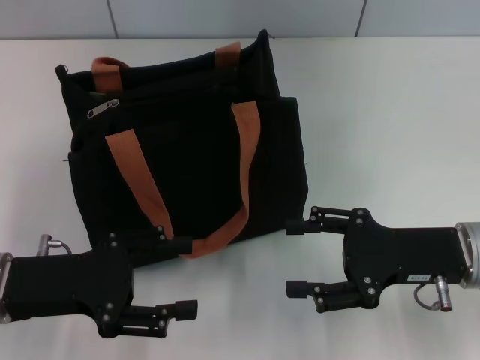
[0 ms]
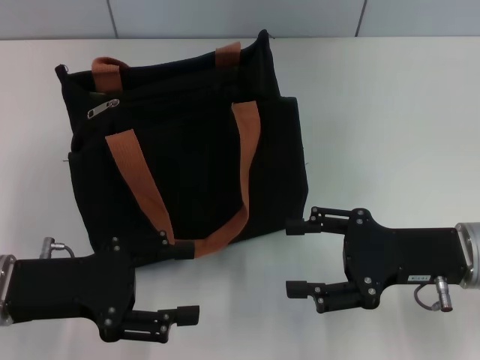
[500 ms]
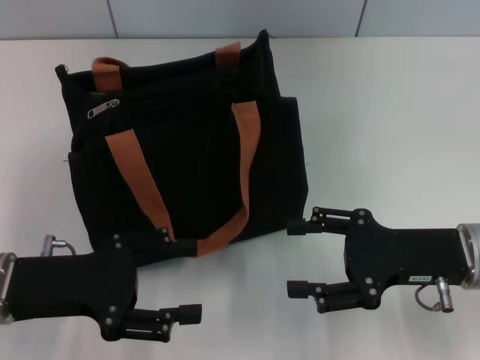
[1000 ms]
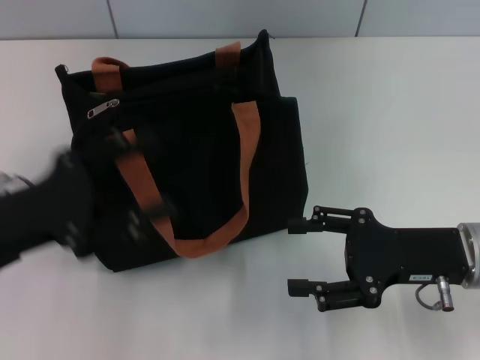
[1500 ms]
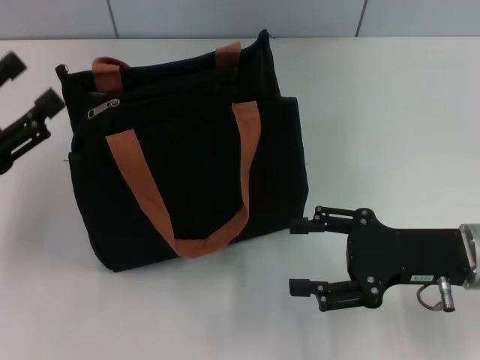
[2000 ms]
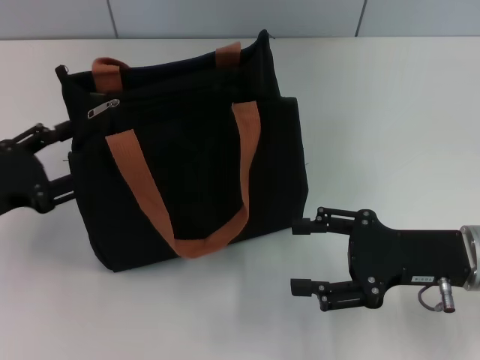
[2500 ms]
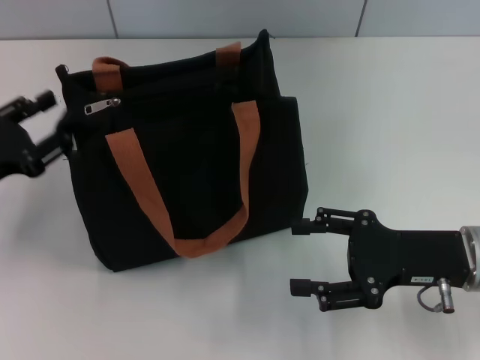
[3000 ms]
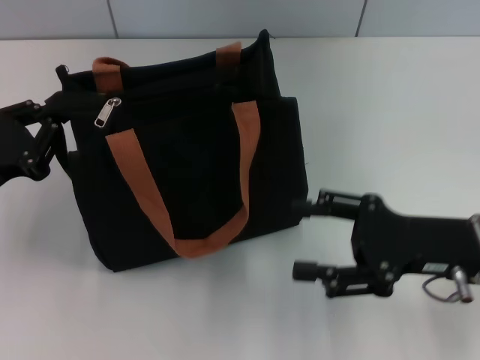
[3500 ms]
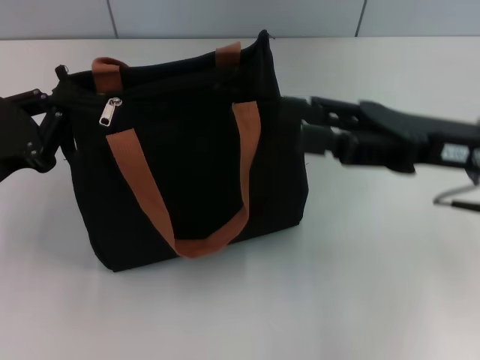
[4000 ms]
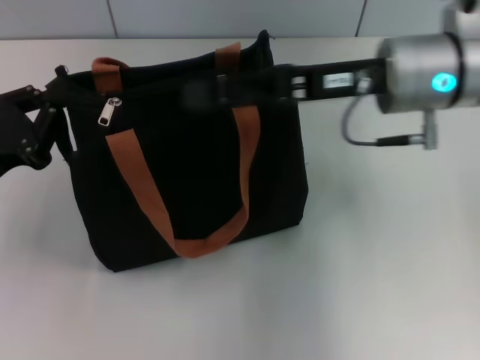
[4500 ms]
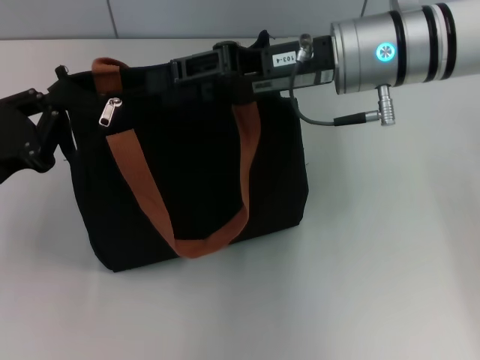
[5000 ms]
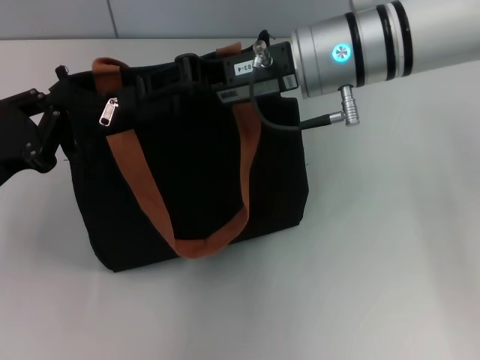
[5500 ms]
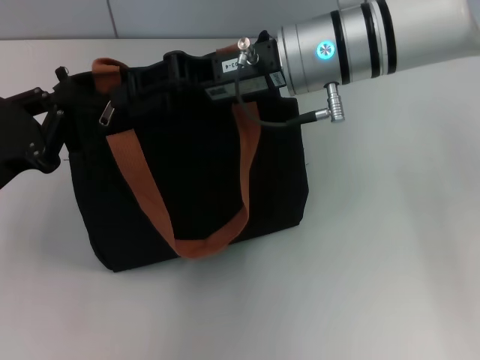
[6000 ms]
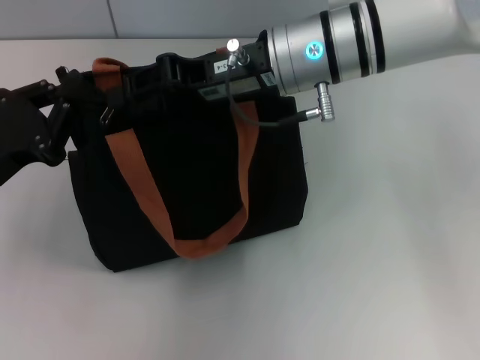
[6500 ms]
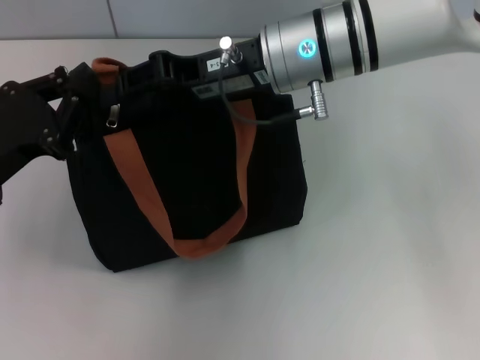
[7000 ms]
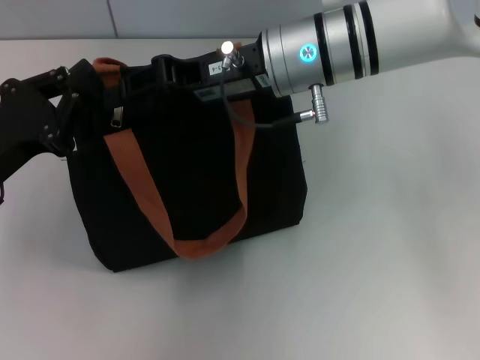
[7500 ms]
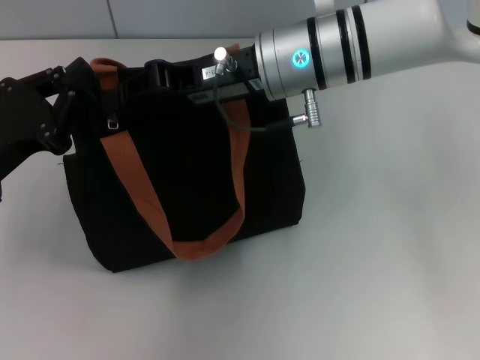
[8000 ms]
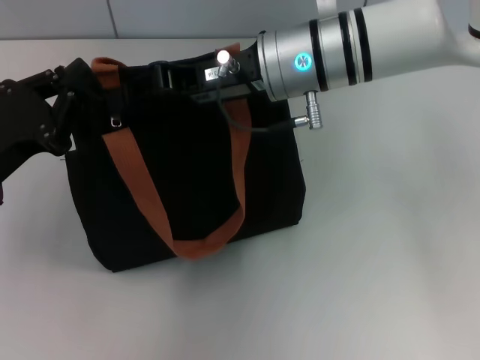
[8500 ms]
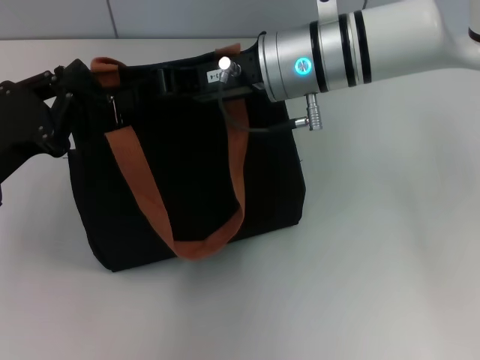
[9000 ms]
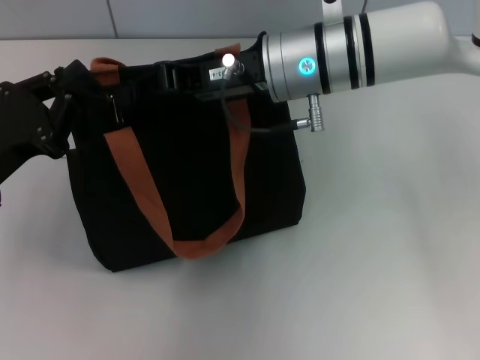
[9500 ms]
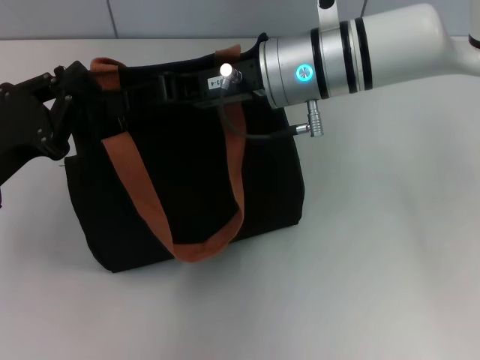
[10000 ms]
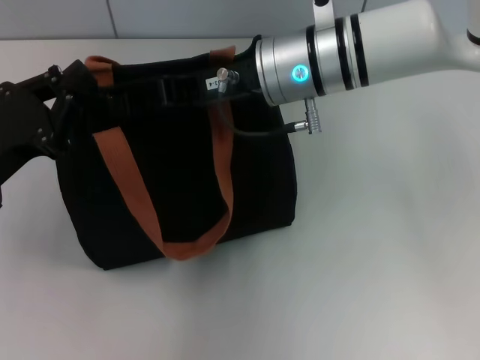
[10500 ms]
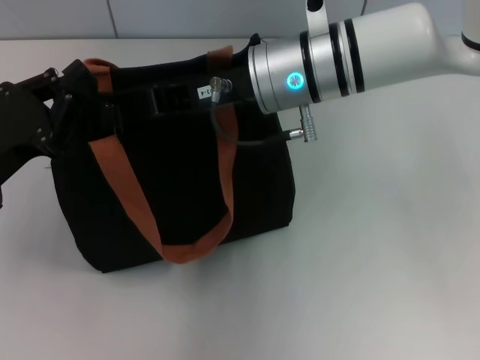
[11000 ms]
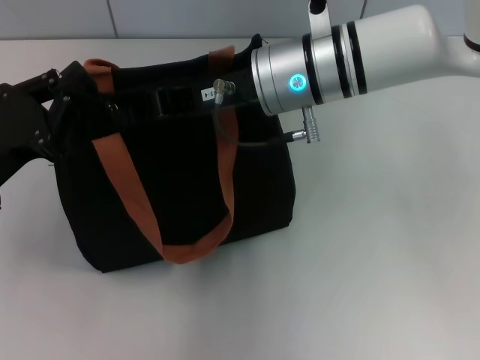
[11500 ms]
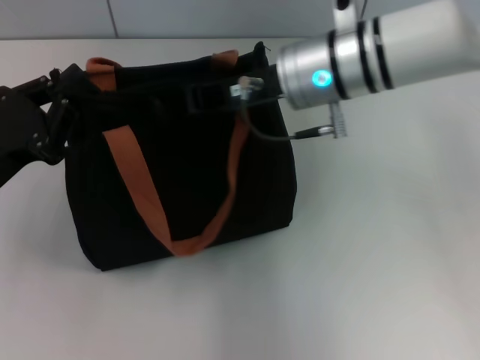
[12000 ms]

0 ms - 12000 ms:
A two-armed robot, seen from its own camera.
0 ms - 2000 ms: The left gripper heads to the left, covering some 5 cm.
2000 ms - 4000 ms: The left gripper closes. Meanwhile the right gripper shifts approximately 10 cm upward.
4000 ms - 6000 ms: The right gripper is displaced to the left and forward by roughly 15 cm, and closes up.
6000 ms - 12000 ms: The grippers make only small movements.

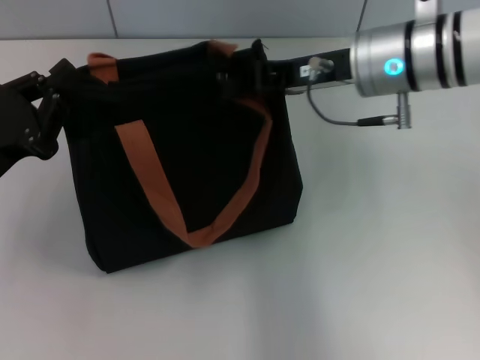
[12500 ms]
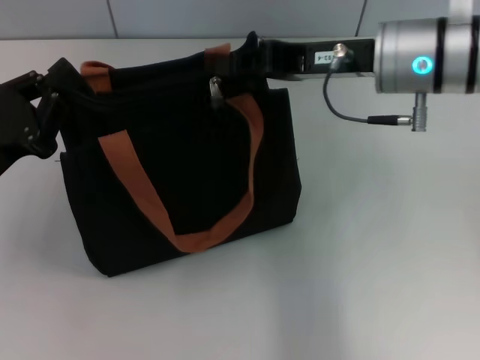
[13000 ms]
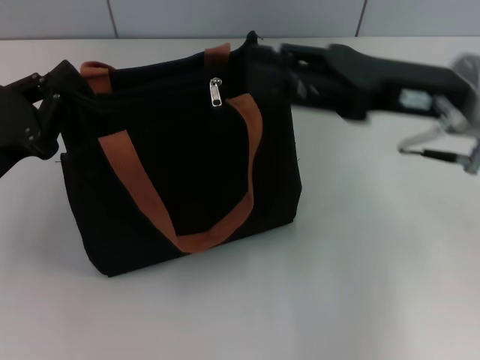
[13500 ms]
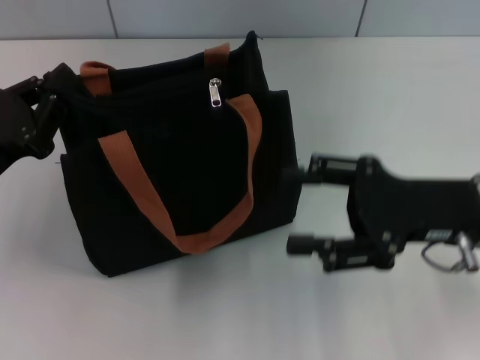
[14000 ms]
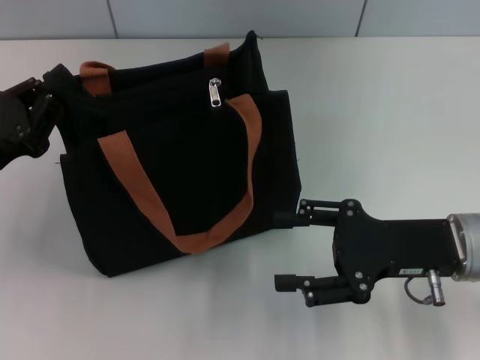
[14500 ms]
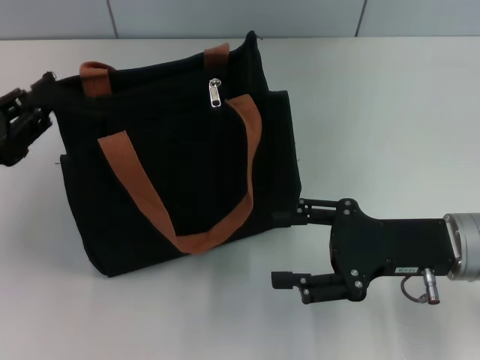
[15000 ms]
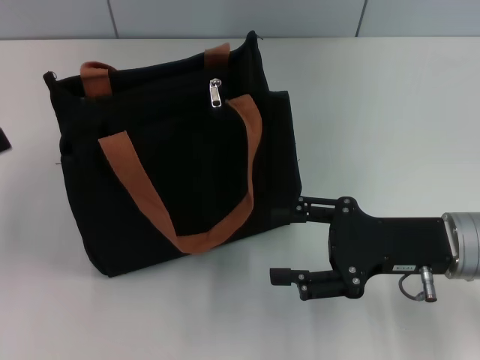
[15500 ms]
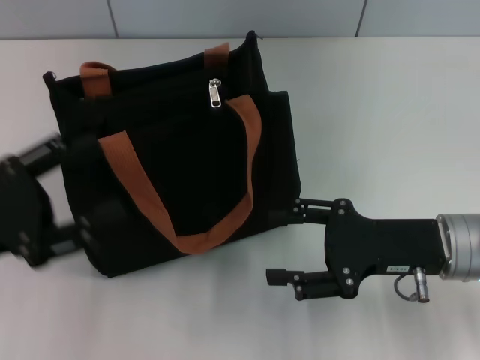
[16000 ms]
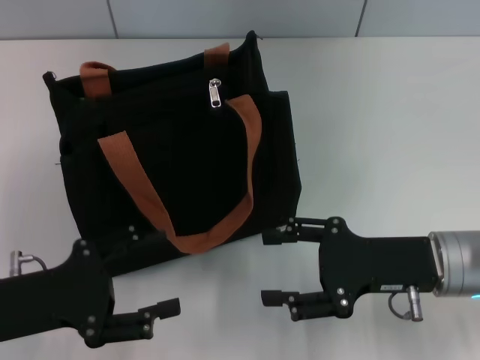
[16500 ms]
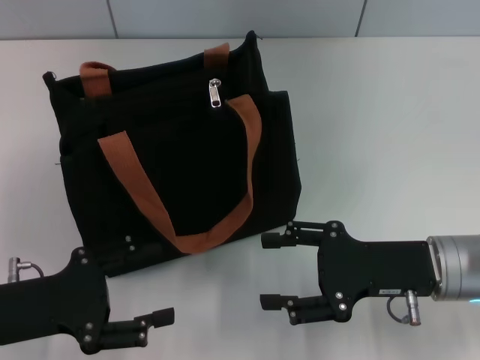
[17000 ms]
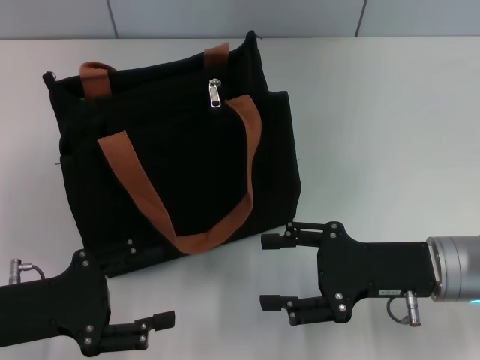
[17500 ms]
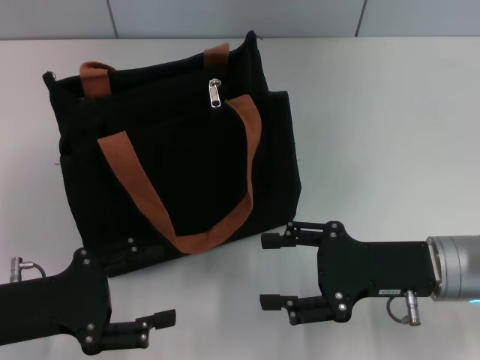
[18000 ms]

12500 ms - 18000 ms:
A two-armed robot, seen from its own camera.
Step, 13500 ms - 15500 ms: Grab the zipper with your left hand.
12500 ms - 14500 ms: The right gripper shifts approximately 20 cm backward, downward and to the right, and opens.
14500 ms - 16000 ms: The left gripper travels to the left and back again, roughly 10 cm each way, and opens its fingers.
16000 ms - 18000 ms: The left gripper changes place by roughly 5 cm.

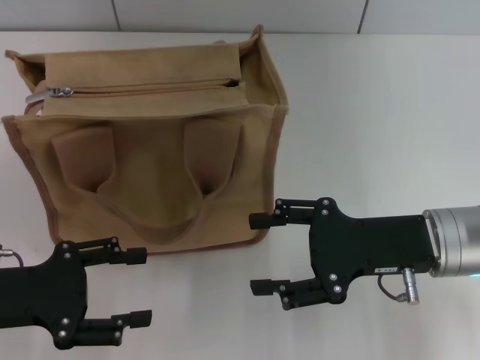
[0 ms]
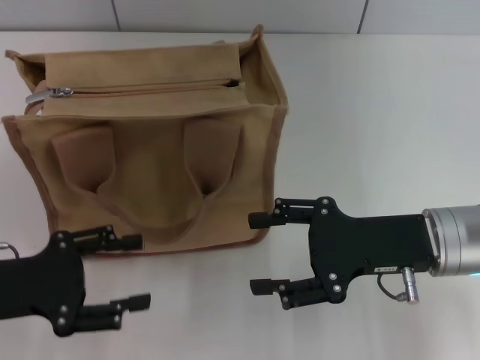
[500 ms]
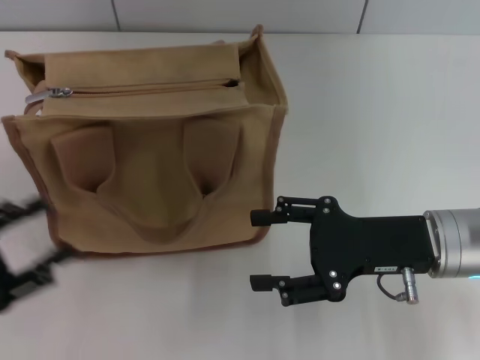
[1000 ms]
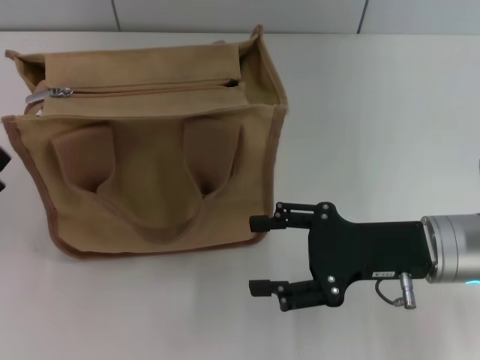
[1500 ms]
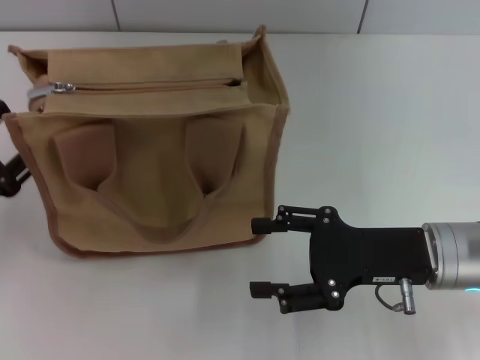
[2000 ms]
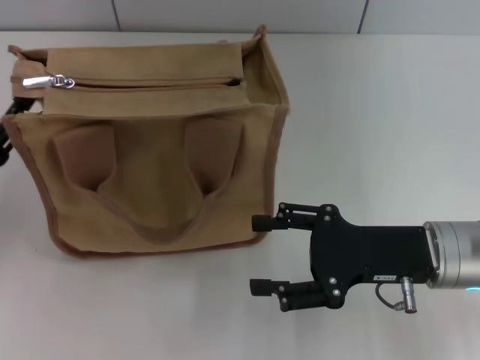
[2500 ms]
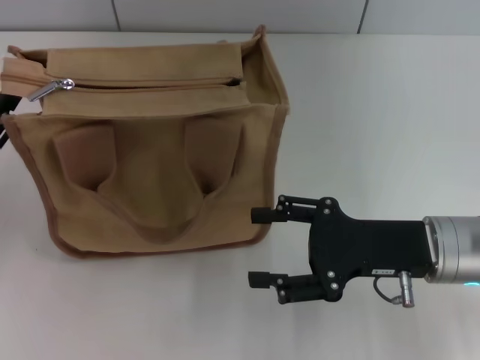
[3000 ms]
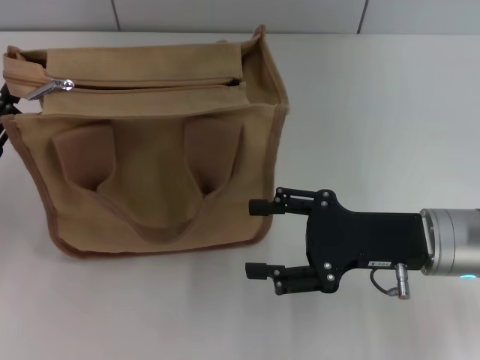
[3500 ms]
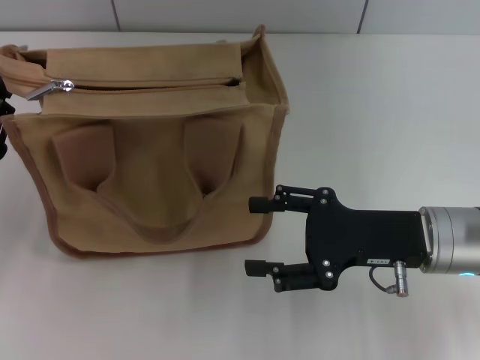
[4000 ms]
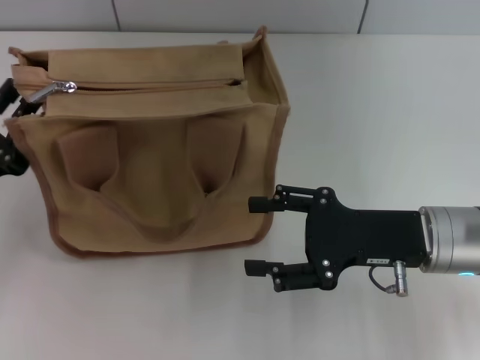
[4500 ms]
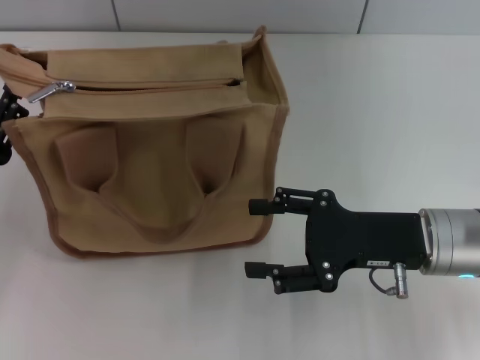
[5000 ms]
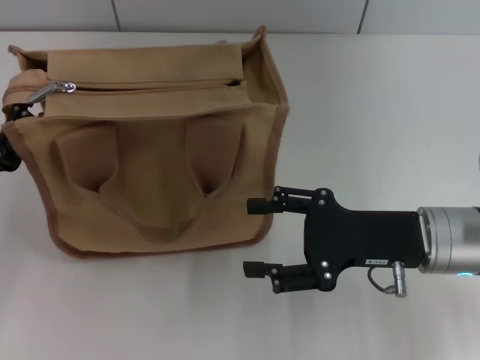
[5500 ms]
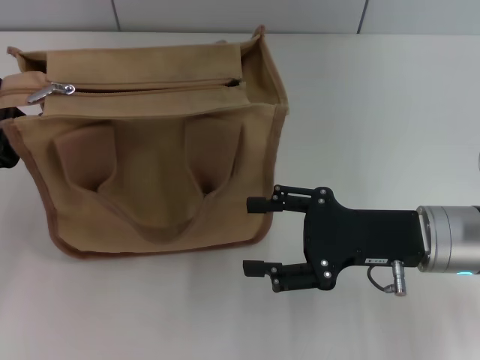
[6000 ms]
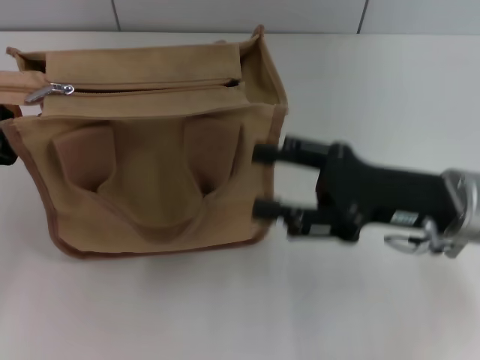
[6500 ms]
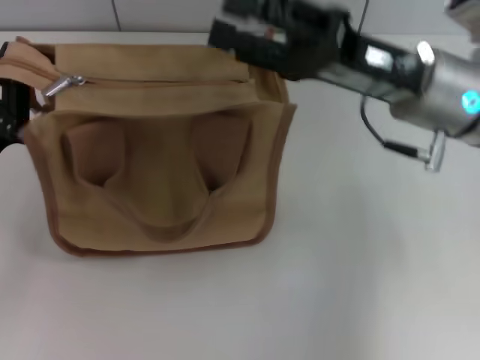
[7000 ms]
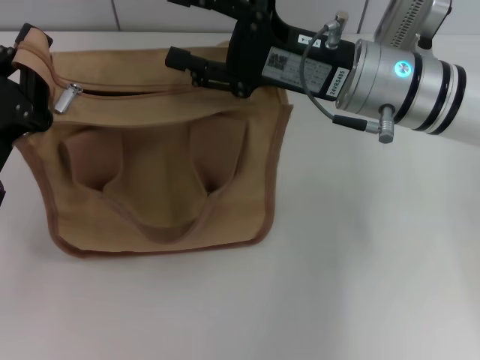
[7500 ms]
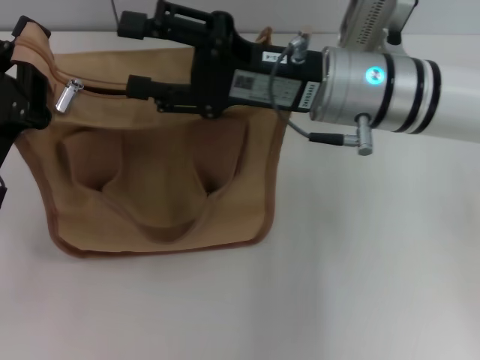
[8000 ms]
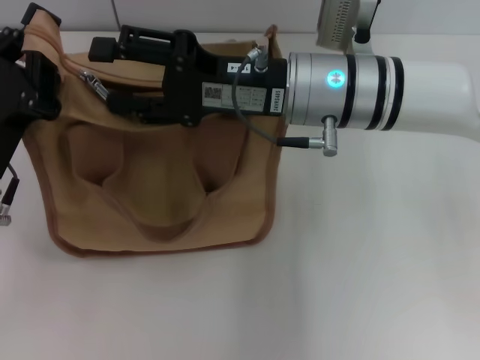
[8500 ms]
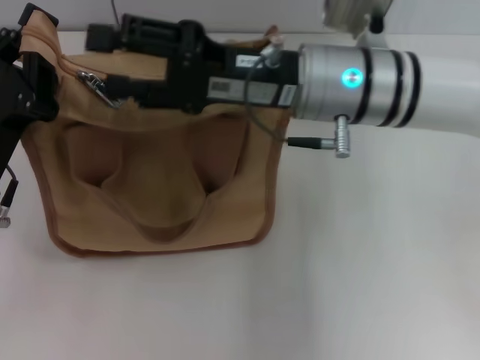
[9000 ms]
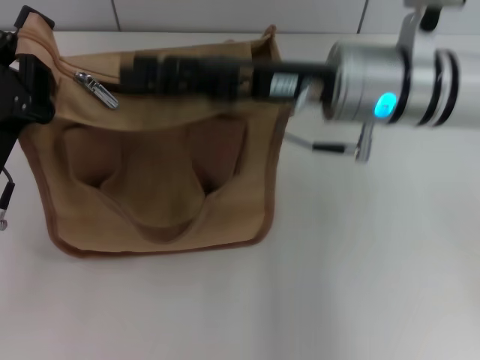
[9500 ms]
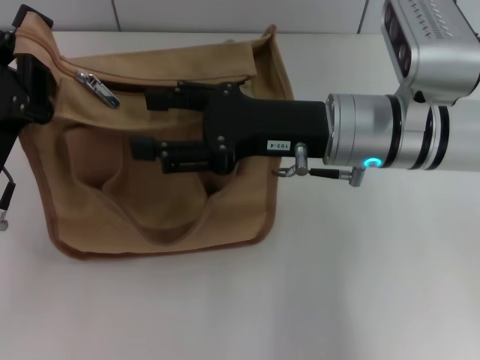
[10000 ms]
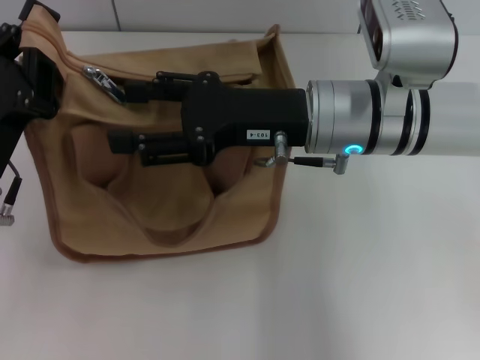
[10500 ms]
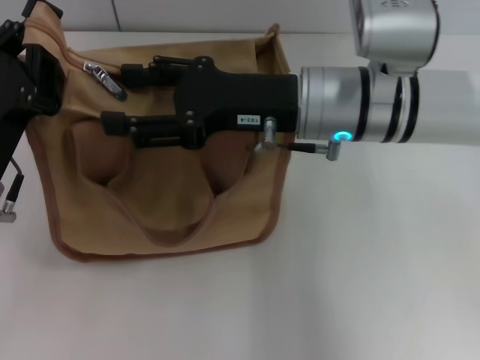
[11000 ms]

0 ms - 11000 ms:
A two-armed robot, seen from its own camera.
2000 ms - 3500 ms: The grippers move only a little.
3500 ms - 5500 ms: The left gripper closes, then opens again.
5500 ms - 7500 ms: The left gripper closes. The right gripper is displaced forward, upward and to the left by roughly 15 cm.
